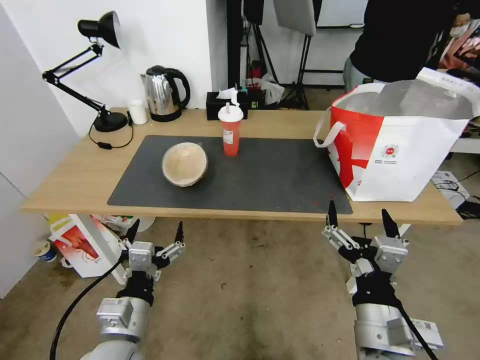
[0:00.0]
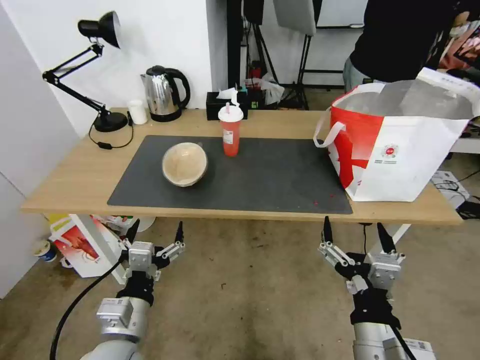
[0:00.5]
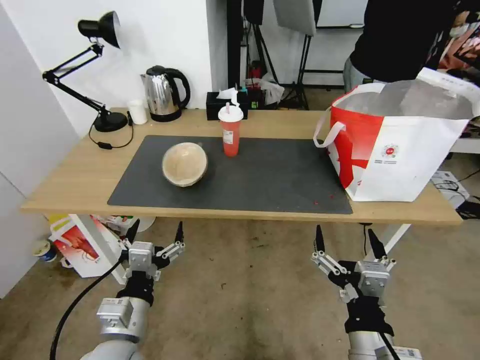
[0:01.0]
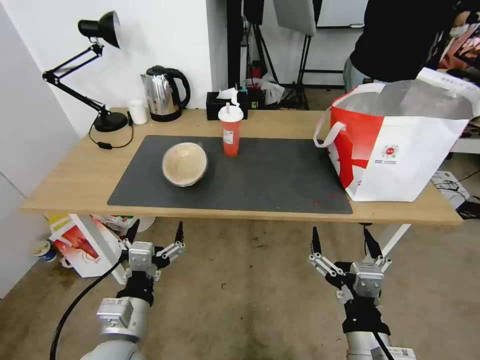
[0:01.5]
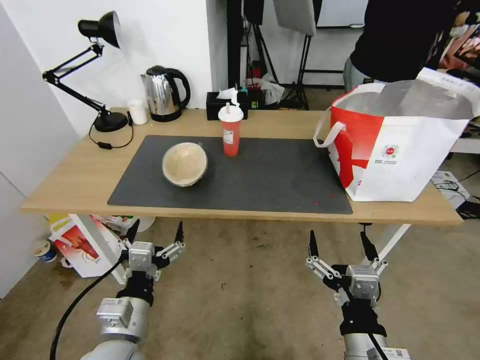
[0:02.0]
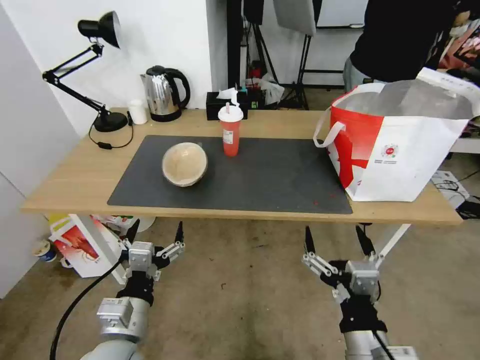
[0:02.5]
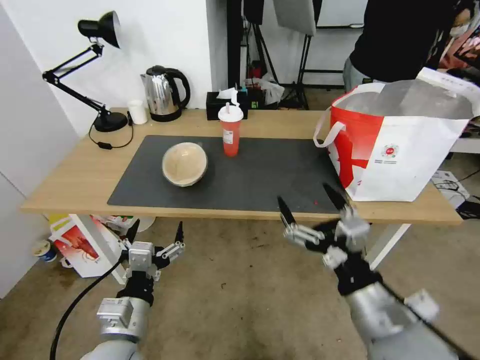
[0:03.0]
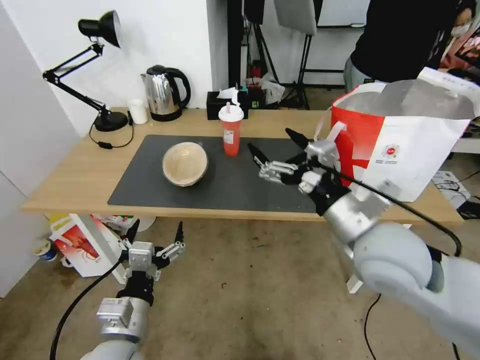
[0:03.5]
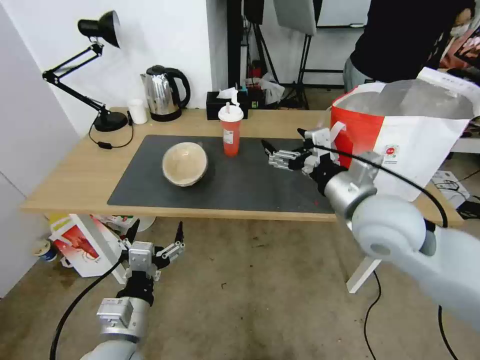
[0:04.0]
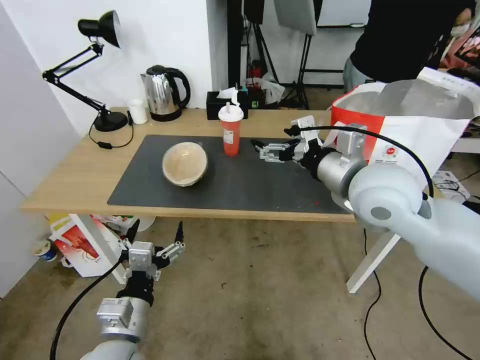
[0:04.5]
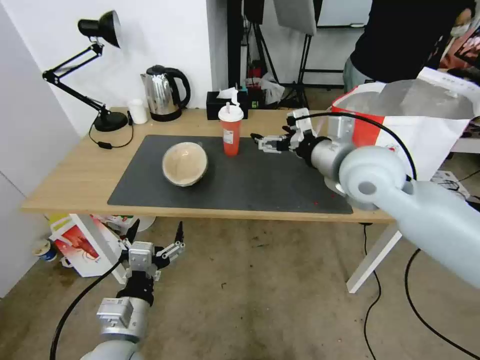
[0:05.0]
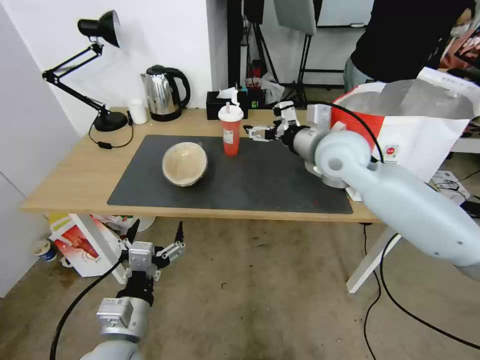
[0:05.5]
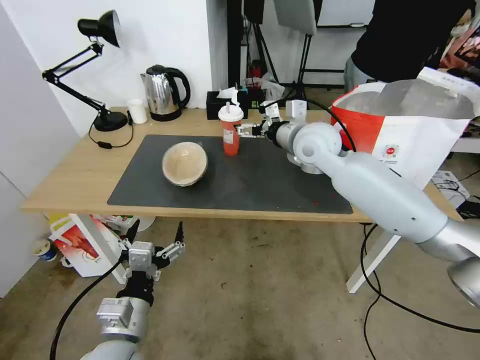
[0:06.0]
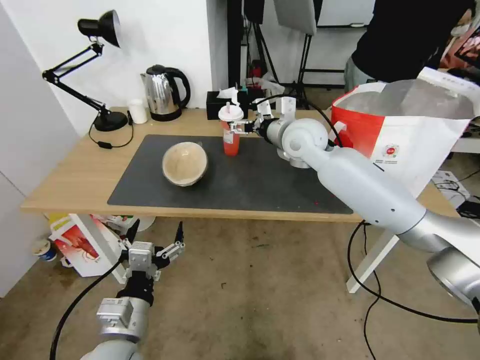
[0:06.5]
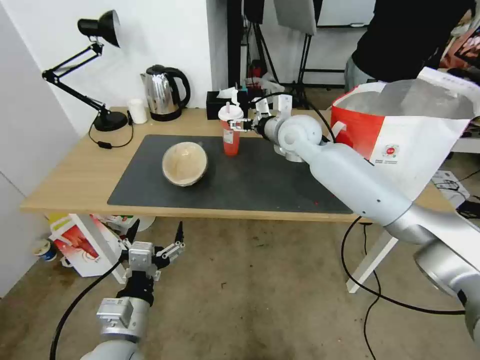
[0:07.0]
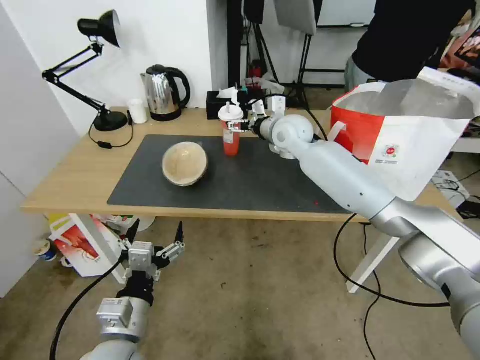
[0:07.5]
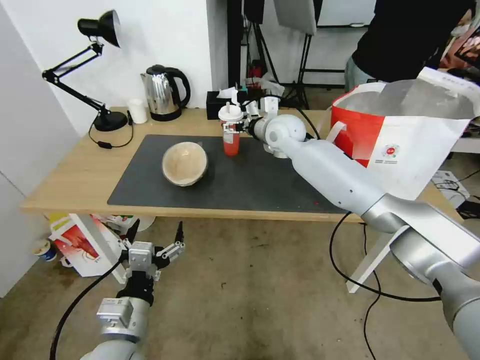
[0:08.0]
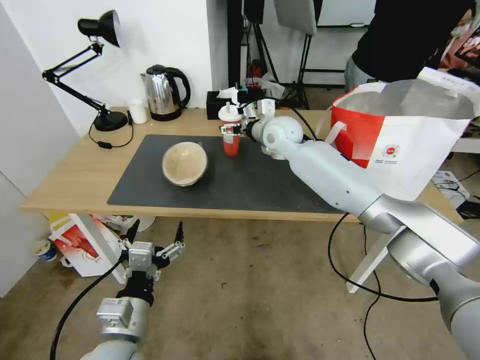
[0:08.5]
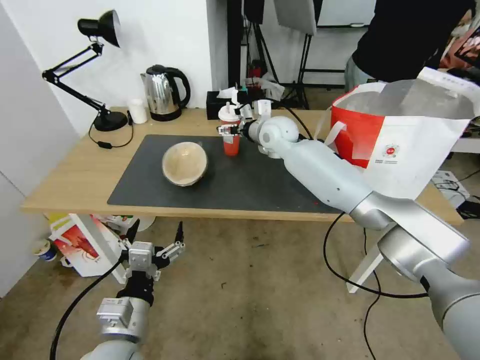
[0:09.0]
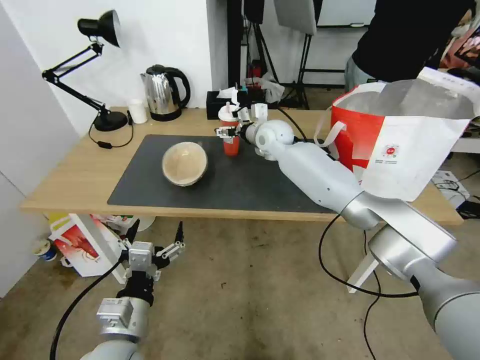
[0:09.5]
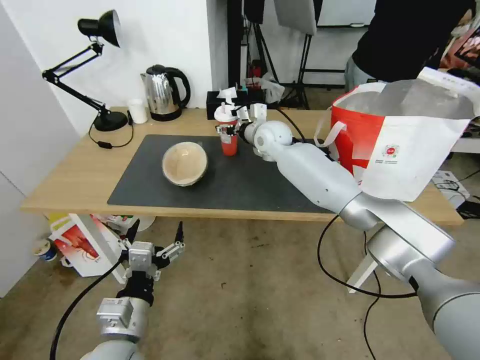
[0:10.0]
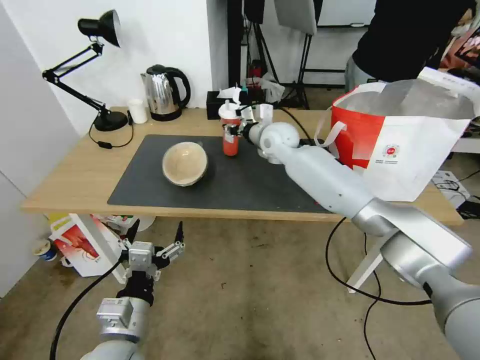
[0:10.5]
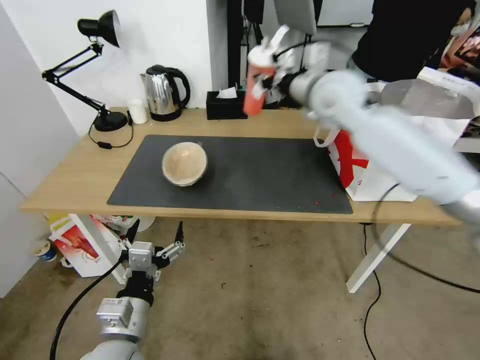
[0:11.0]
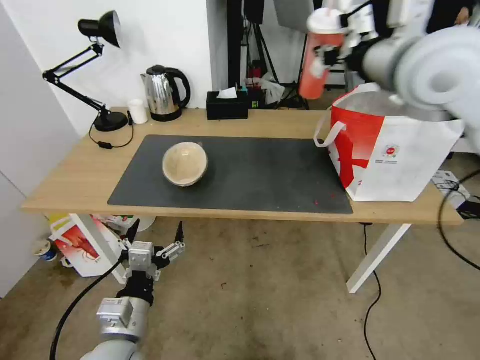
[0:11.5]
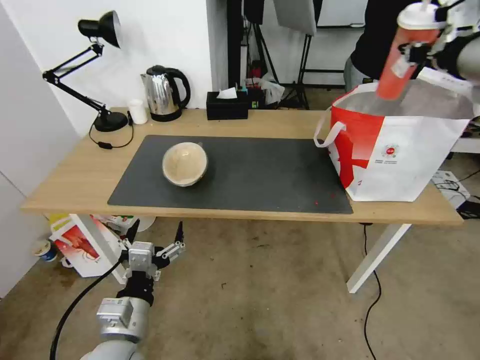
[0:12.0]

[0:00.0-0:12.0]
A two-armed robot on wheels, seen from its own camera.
Task of the whole recording: Pick up the trash from the table and place it into the takeout bag.
0.0 to 2.0 s: The grippers make only small movements.
2.0 to 4.0 s: The right gripper is displaced forward and upward by approximately 30 cm.
4.0 to 6.0 s: The right gripper is displaced forward by approximately 20 cm.
6.0 to 8.0 s: The right gripper shifts some 10 cm forward.
8.0 to 10.0 s: There are only small adjustments of the grippers.
10.0 to 12.0 s: The right gripper shifts about 40 cm upward, to the right and backward, and closes.

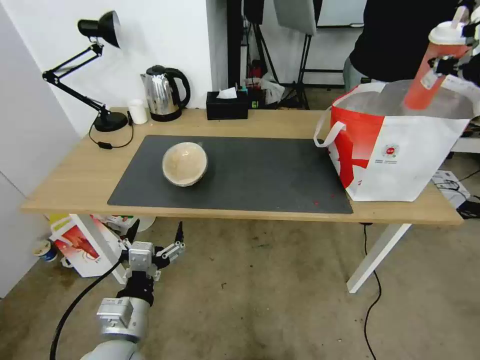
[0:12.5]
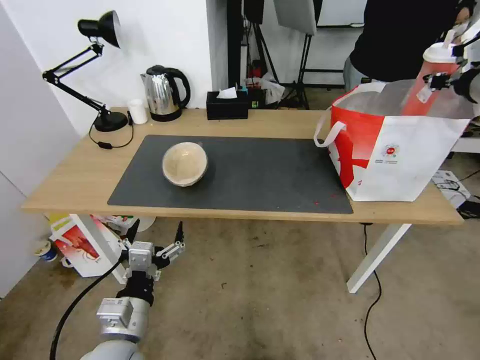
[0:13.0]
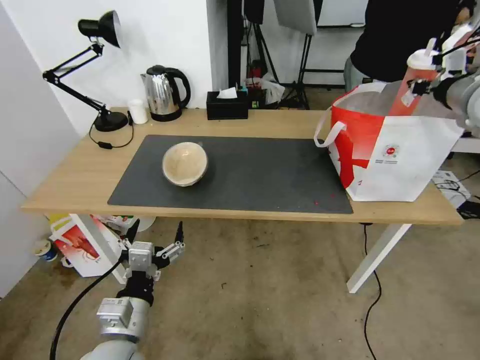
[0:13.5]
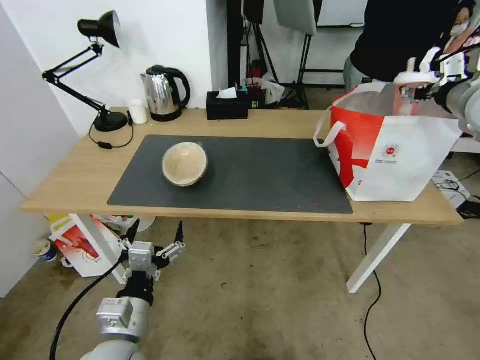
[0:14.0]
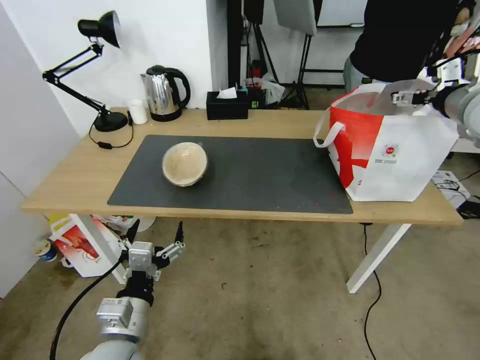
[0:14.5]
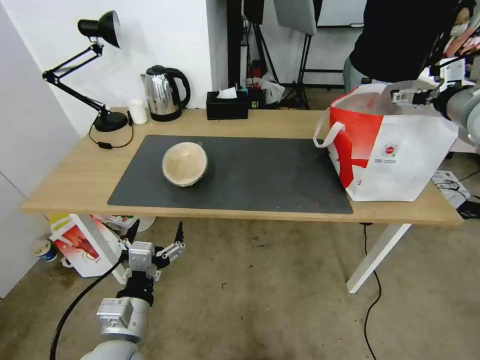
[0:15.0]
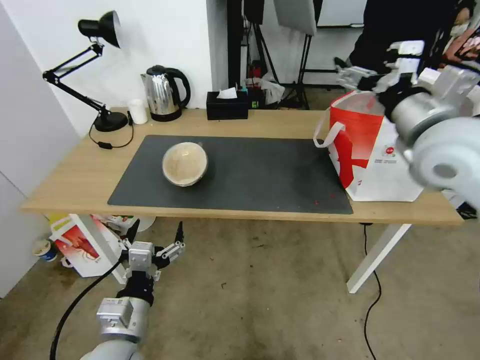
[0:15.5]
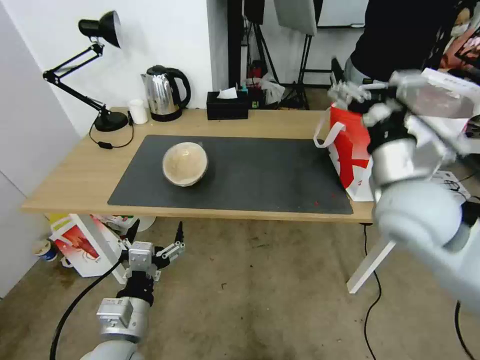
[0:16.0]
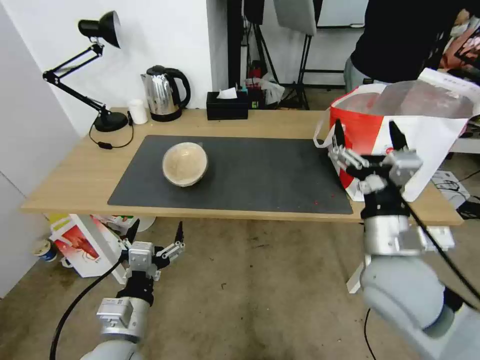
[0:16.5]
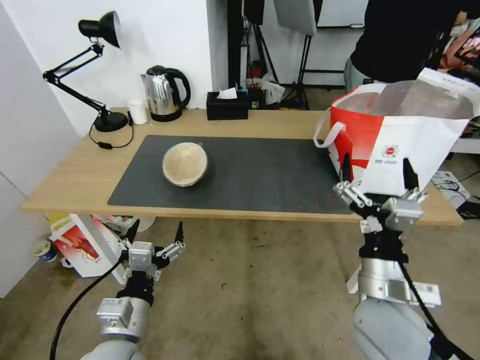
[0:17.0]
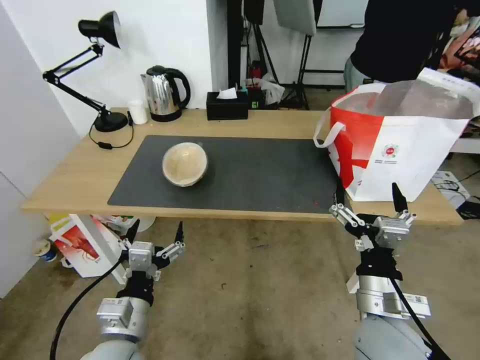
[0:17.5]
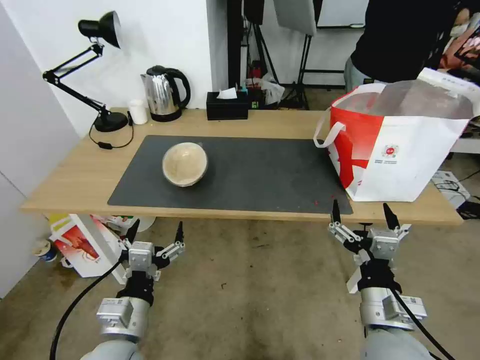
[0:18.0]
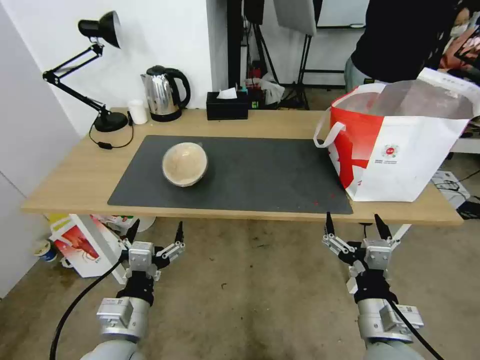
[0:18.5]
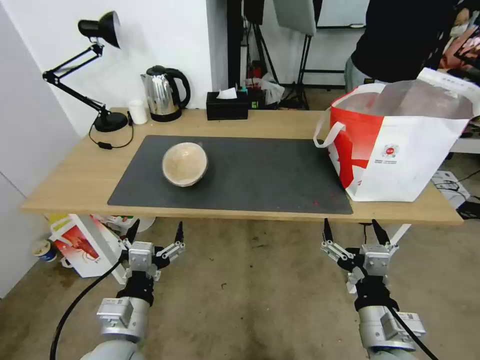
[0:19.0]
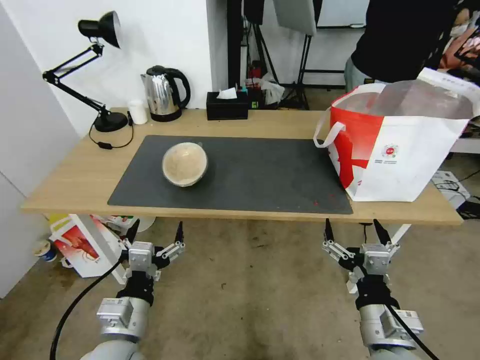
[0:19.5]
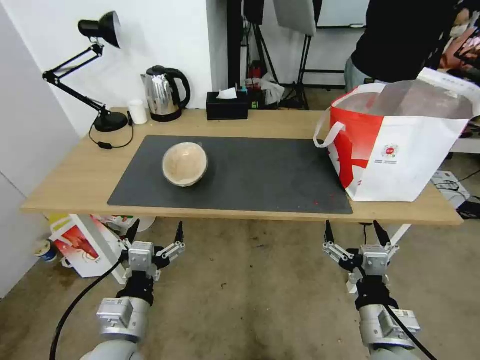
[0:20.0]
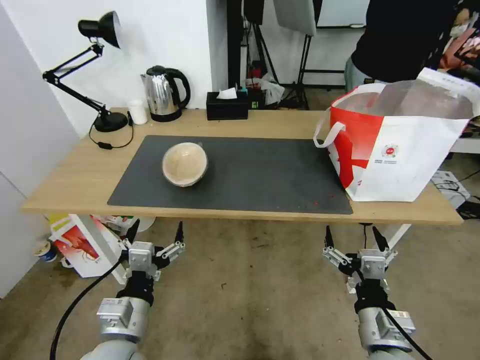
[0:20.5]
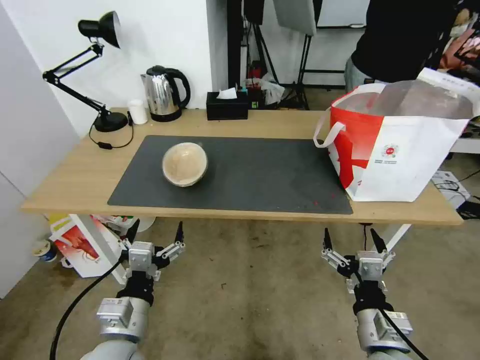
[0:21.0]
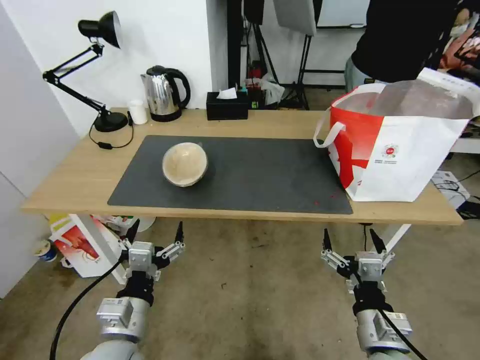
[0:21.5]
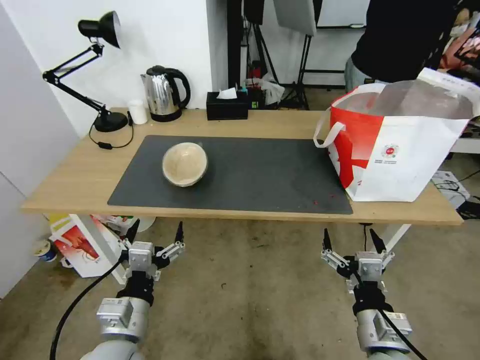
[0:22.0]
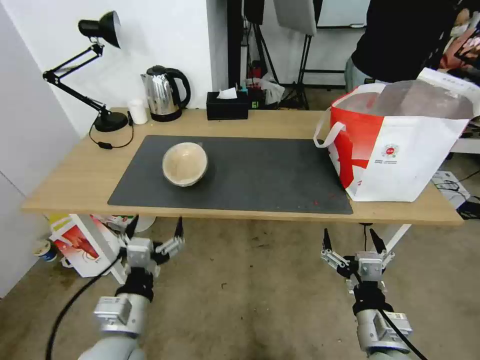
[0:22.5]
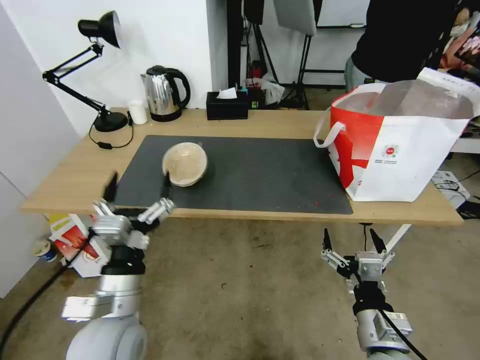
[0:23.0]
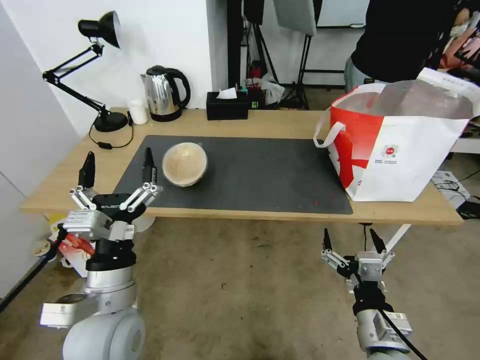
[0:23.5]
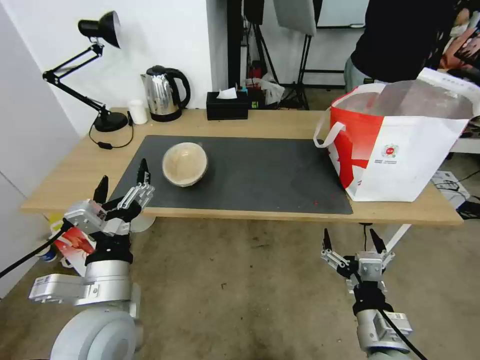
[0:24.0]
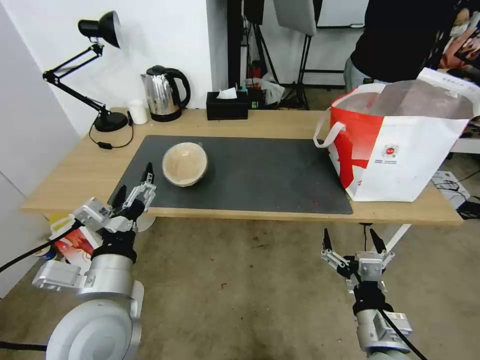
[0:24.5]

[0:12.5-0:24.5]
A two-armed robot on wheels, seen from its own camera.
Task of the whole recording: Pick up the trash from the table and place it into the takeout bag.
12.5 to 14.5 s: The right gripper shifts roughly 5 cm downward, and opens up.
14.5 to 16.5 s: The right gripper is displaced backward, downward and to the left by some 35 cm.
16.5 to 18.5 s: The right gripper travels backward and downward by about 15 cm.
18.5 to 20.5 s: There are only small adjustments of the grippers.
20.5 to 22.5 s: Both grippers stay about where they are.
22.5 to 24.5 s: The left gripper shifts approximately 10 cm upward.

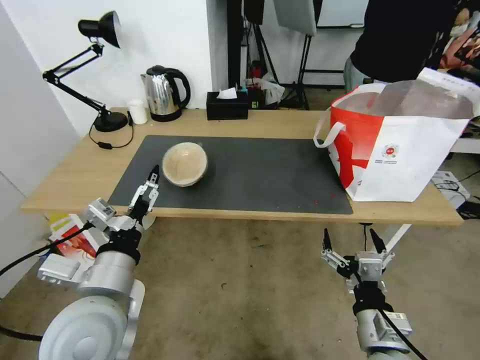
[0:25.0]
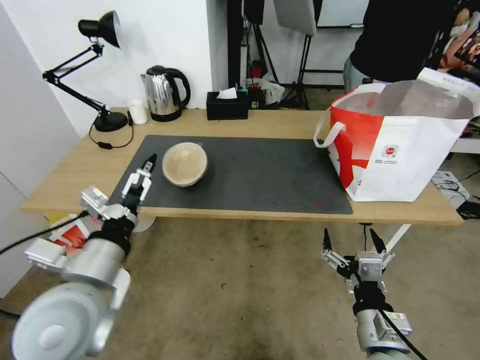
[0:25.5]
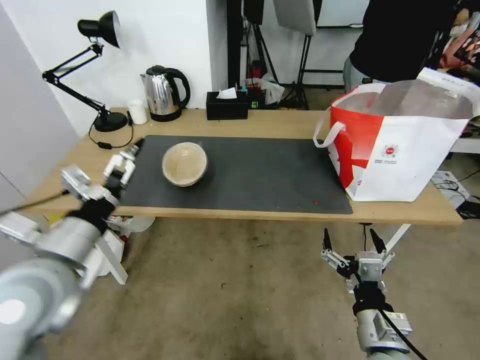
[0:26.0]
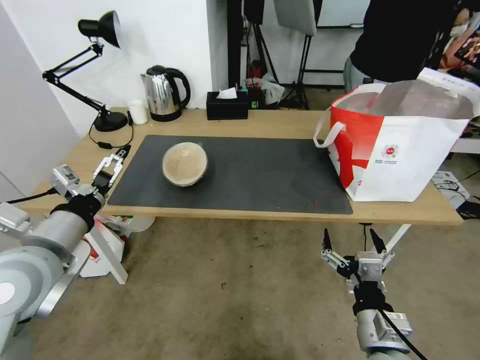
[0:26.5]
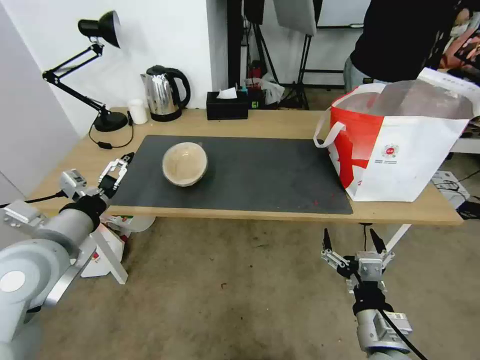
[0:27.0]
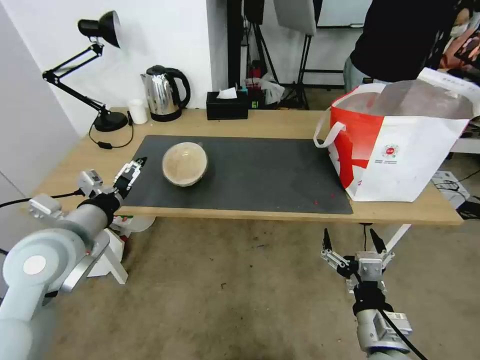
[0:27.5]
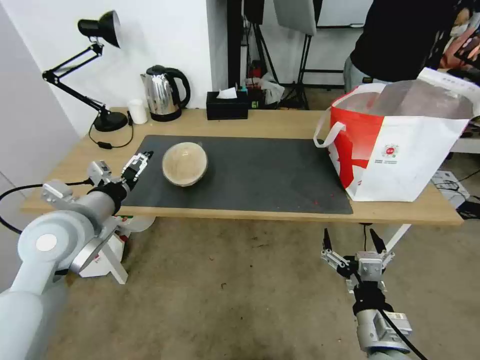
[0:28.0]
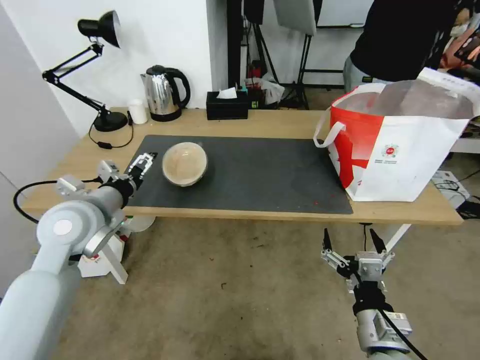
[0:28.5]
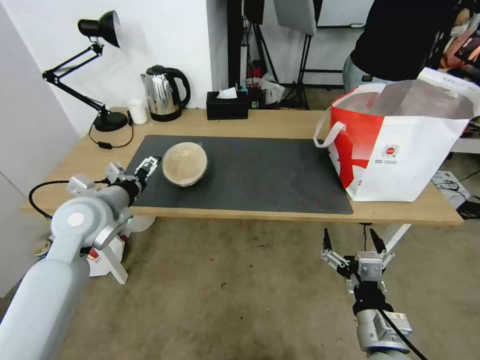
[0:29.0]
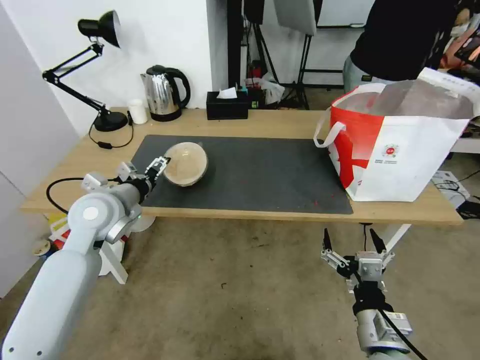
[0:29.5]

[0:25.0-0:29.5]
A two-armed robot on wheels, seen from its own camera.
Task of the whole recording: Pick up the trash from the table and place it into the takeout bag.
25.0 to 27.0 s: The left gripper travels to the left and forward by approximately 10 cm.
27.0 to 29.5 s: The left gripper moves forward, roughly 15 cm.
